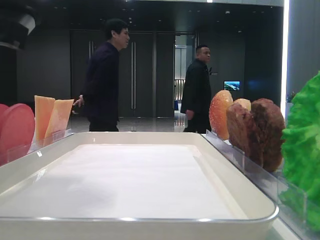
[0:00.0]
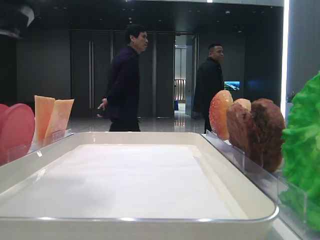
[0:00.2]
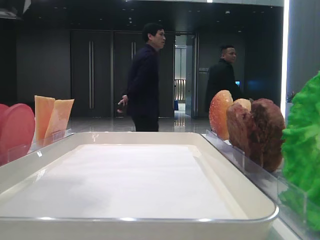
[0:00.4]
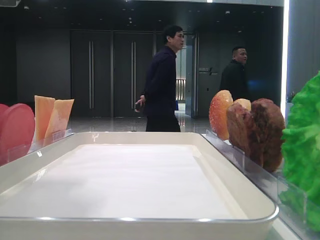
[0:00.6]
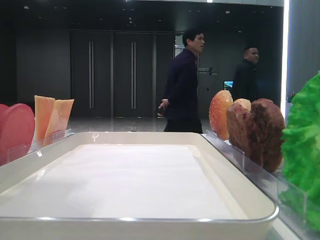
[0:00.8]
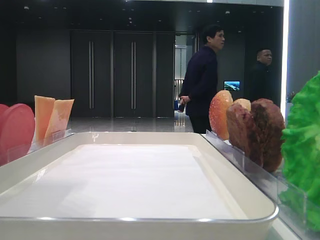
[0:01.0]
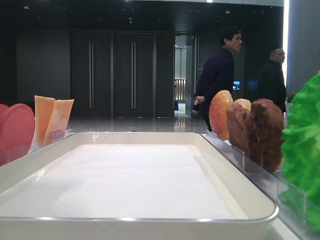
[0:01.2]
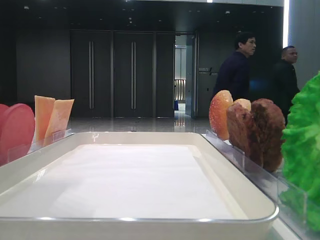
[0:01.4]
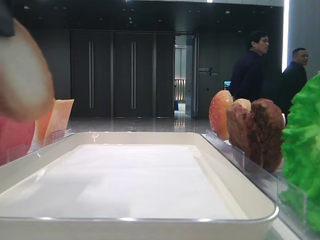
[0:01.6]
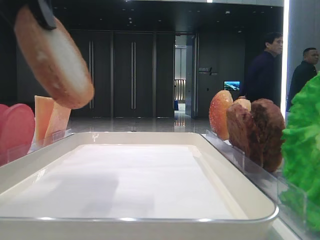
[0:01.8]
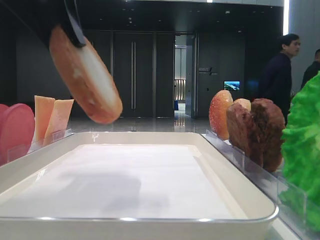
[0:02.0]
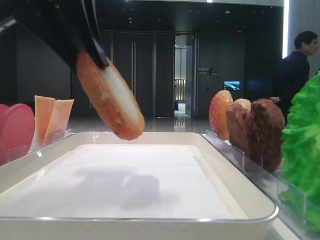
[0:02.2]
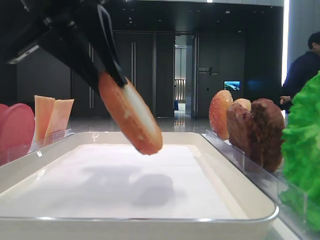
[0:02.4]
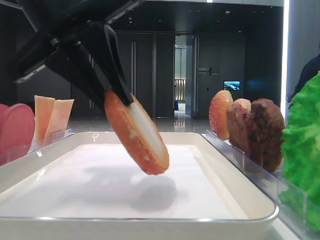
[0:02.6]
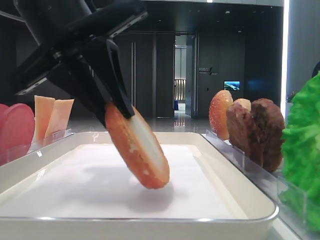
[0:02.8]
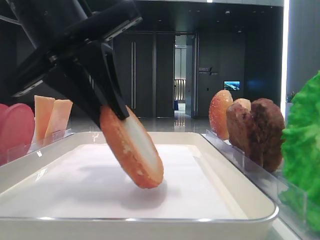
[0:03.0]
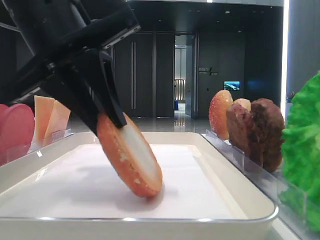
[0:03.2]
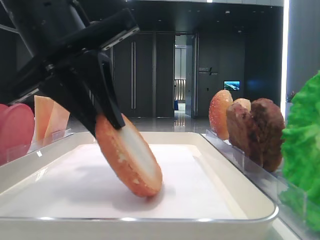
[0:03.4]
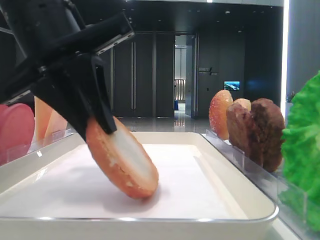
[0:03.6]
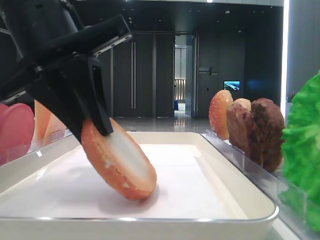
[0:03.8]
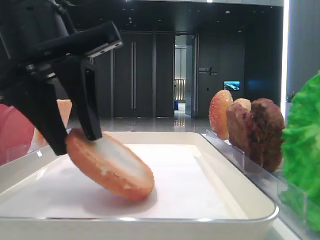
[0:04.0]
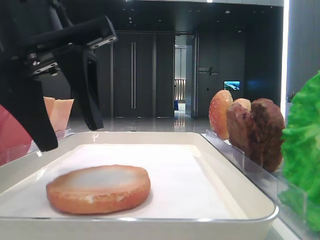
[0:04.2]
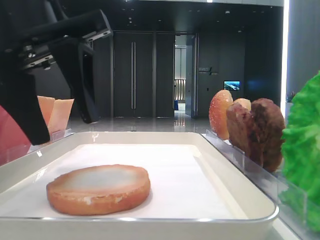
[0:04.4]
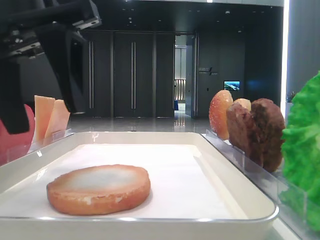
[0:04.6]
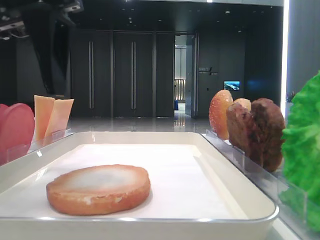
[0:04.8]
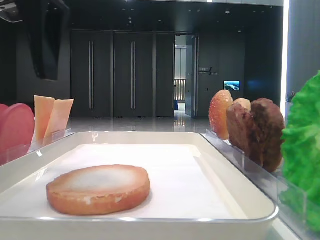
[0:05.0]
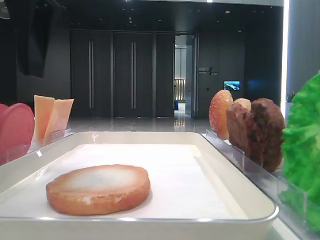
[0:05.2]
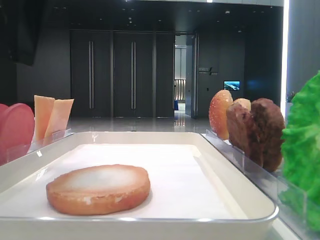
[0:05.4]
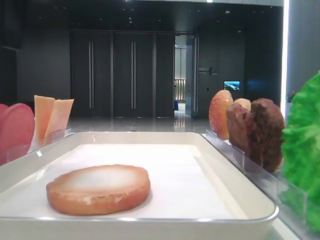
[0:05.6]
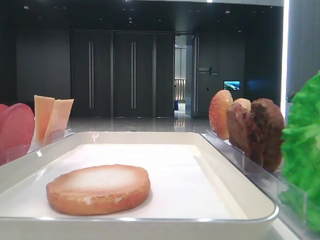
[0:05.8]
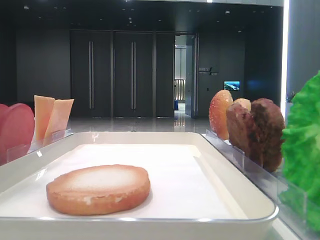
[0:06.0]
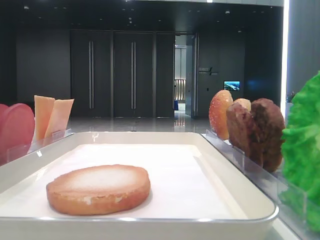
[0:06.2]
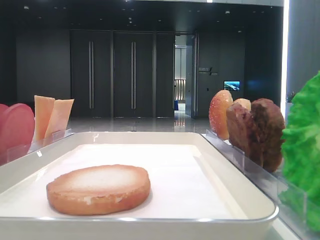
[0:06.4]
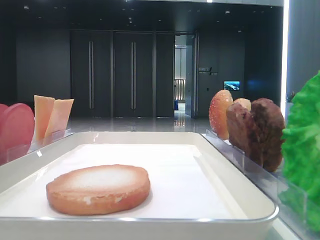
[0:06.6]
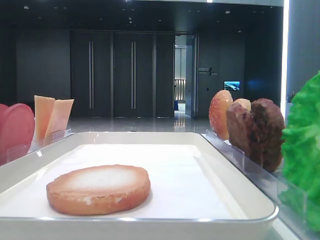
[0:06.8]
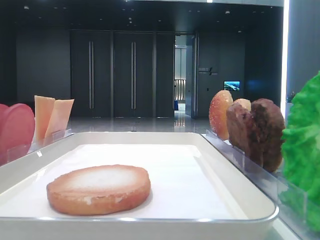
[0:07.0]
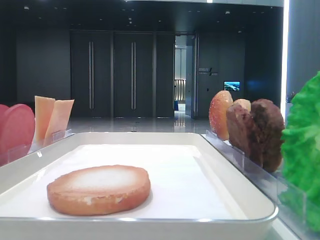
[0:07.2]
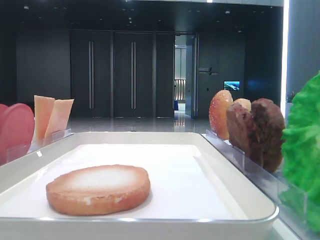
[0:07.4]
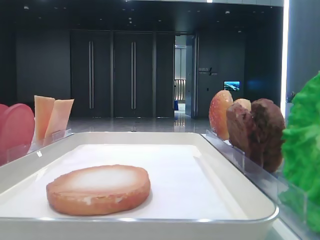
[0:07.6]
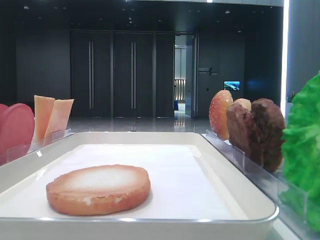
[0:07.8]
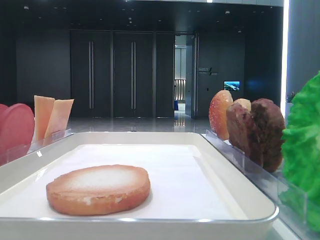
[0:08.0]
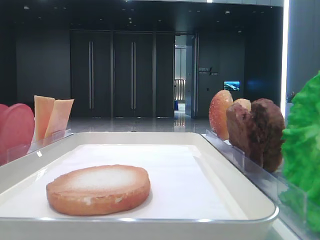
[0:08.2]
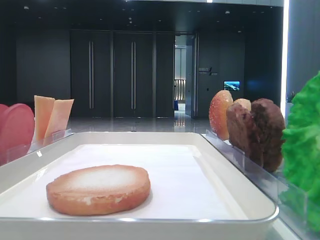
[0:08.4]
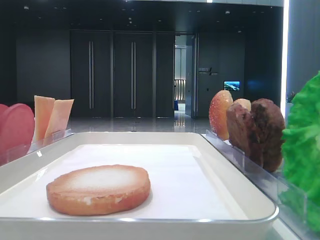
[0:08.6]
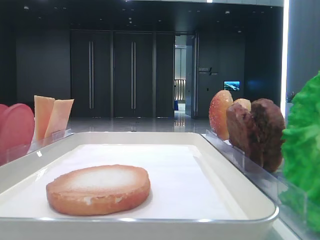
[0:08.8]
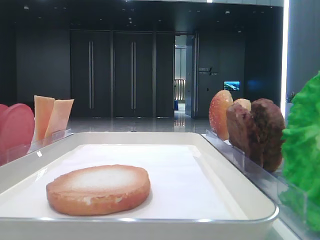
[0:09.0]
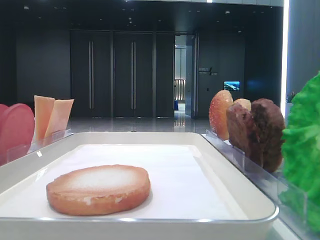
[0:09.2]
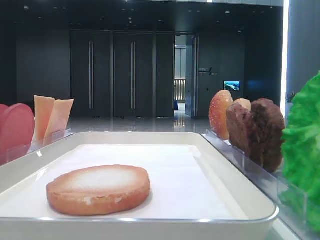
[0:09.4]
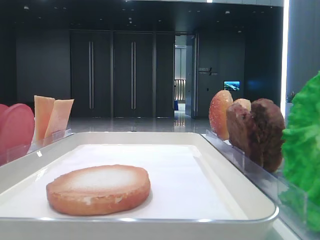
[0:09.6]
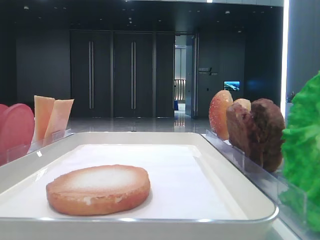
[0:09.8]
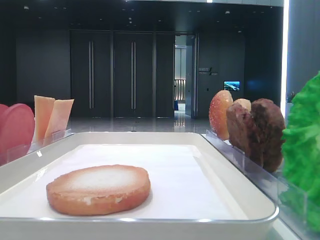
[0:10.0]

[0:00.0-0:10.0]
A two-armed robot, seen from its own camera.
Step, 0:00.6 to 0:04.0: Place the bread on the tray with the left hand.
0:00.0 to 0:01.4: The left gripper is displaced upward by approximately 5 cm.
0:01.4 to 0:02.8: The left gripper goes some 10 cm downward, to the right and forward.
0:02.8 to 0:04.2: The left gripper opens up.
0:04.2 to 0:05.8: The left gripper is displaced upward and to the left by approximately 15 cm, and opens.
0:05.8 to 0:07.2: The left gripper is displaced backward and to the left by approximately 15 cm.
